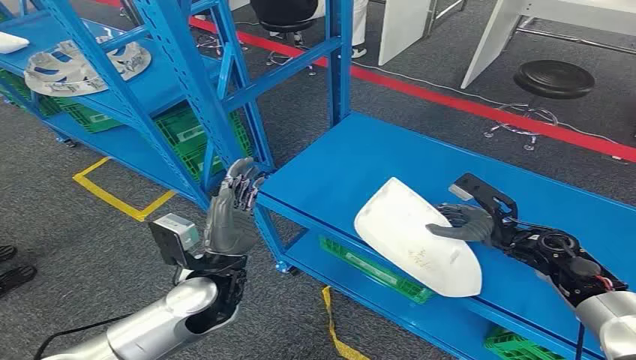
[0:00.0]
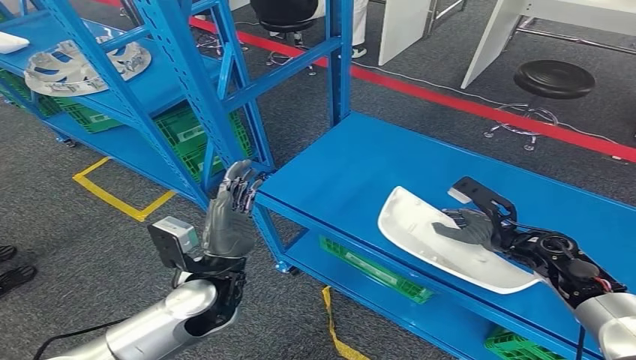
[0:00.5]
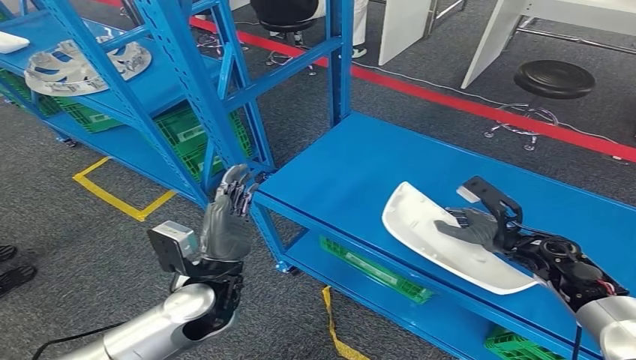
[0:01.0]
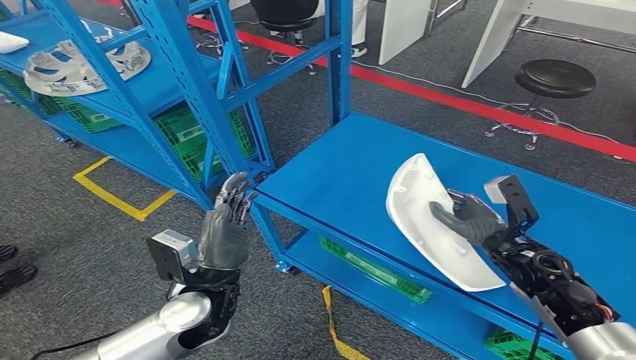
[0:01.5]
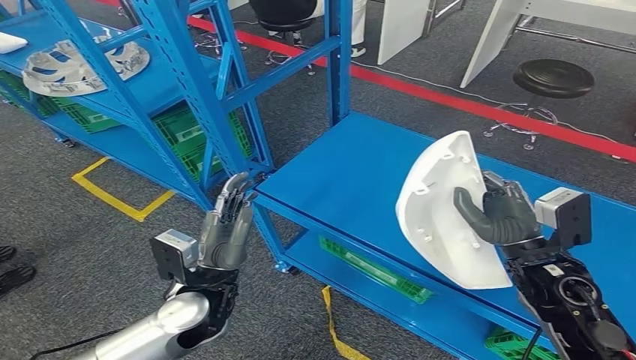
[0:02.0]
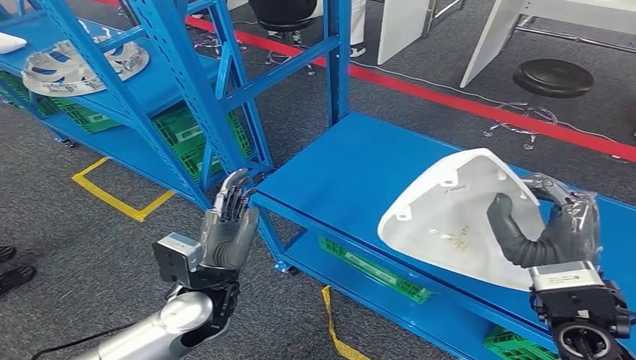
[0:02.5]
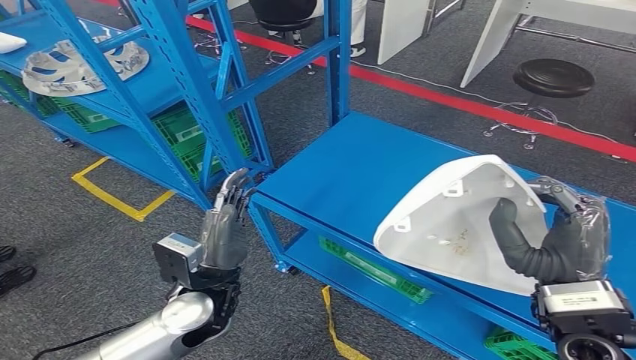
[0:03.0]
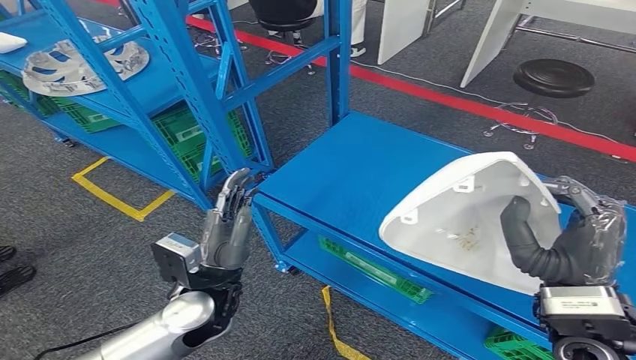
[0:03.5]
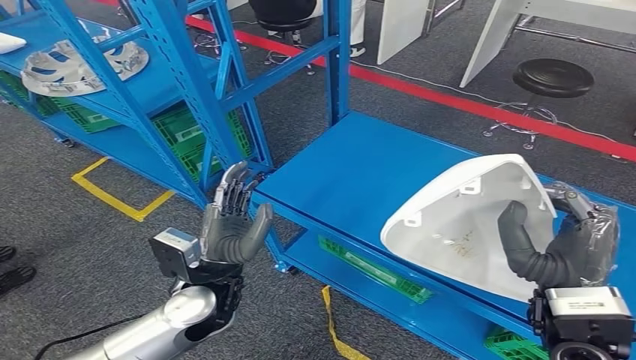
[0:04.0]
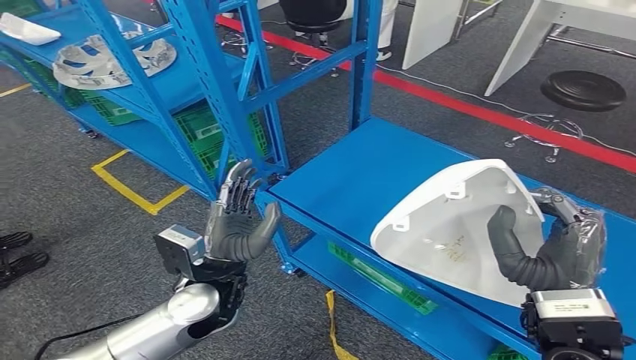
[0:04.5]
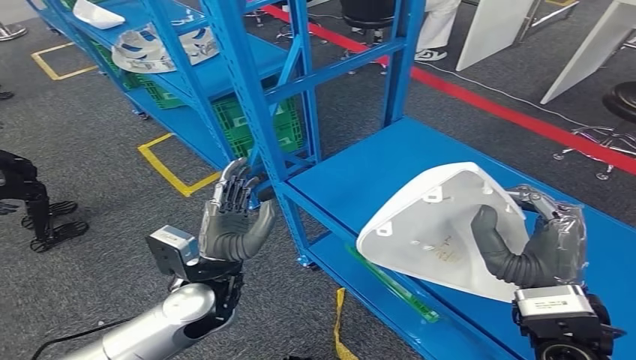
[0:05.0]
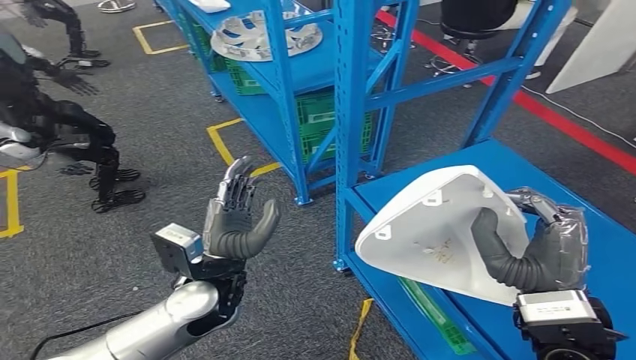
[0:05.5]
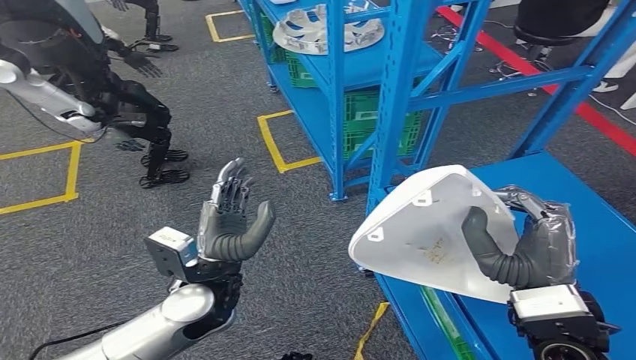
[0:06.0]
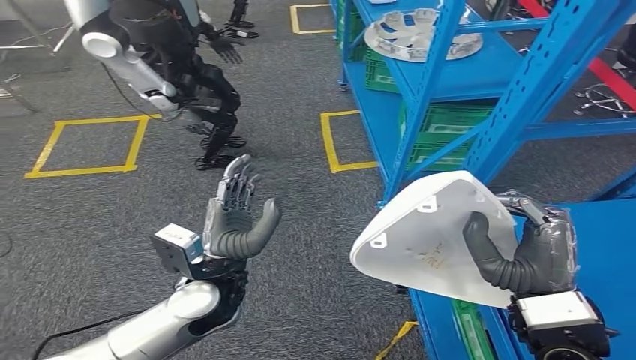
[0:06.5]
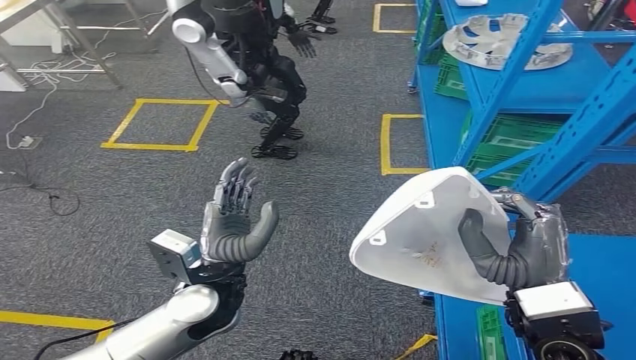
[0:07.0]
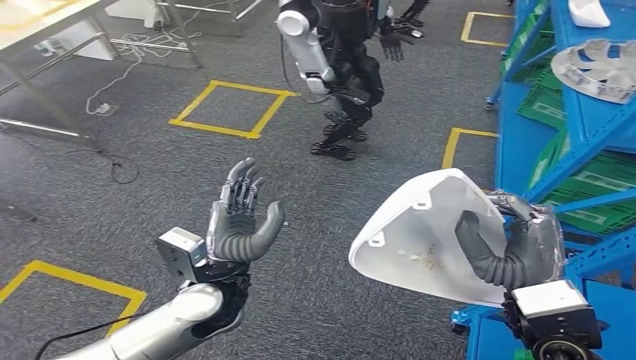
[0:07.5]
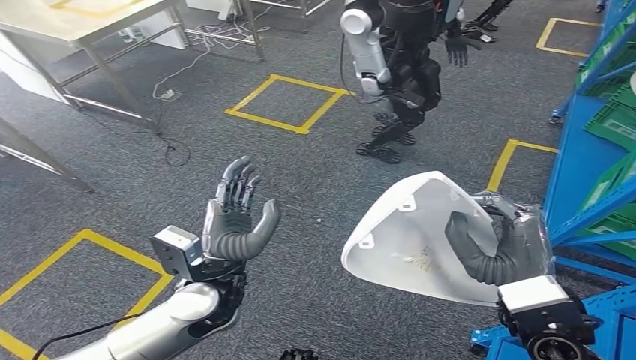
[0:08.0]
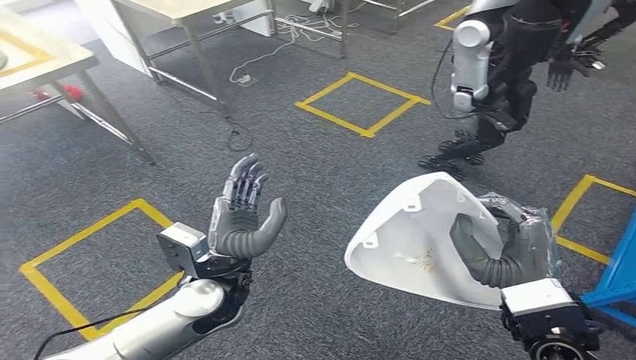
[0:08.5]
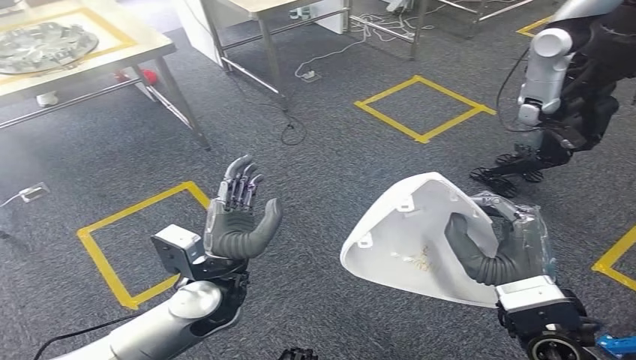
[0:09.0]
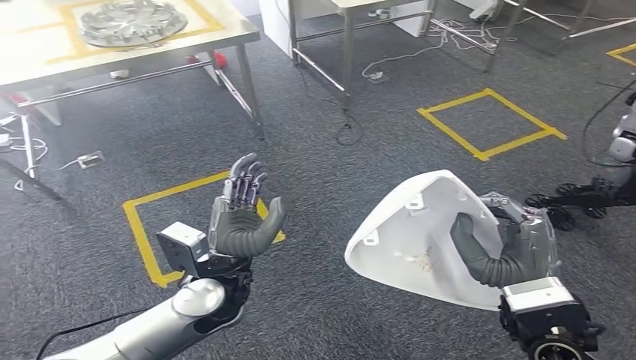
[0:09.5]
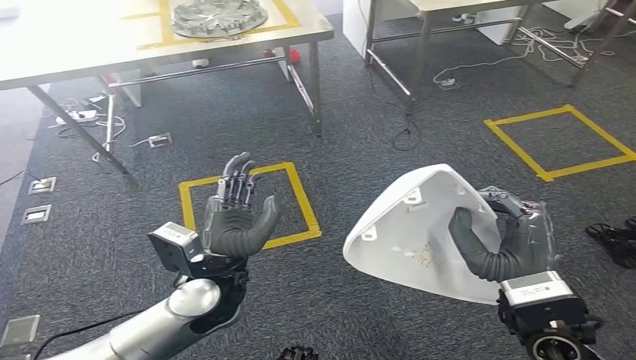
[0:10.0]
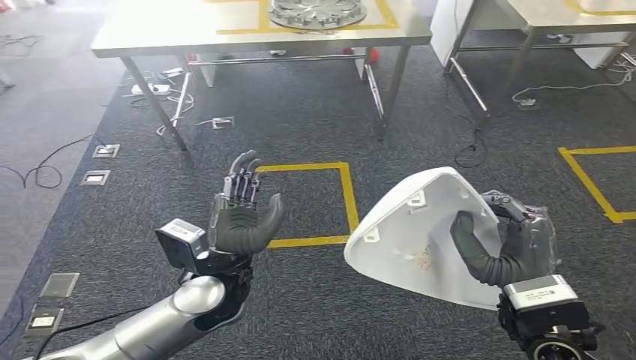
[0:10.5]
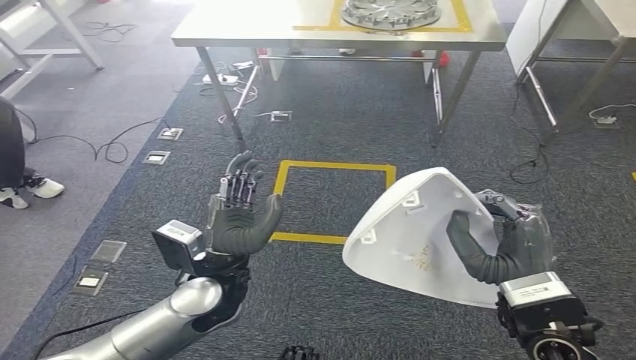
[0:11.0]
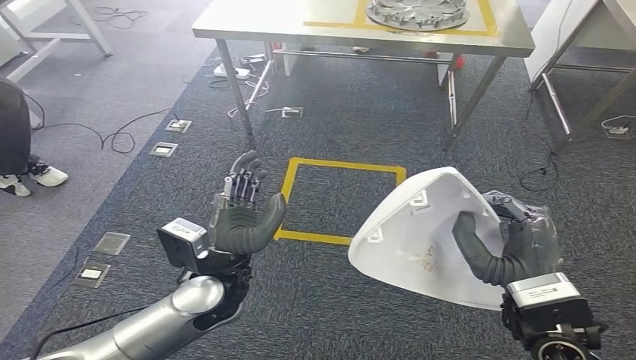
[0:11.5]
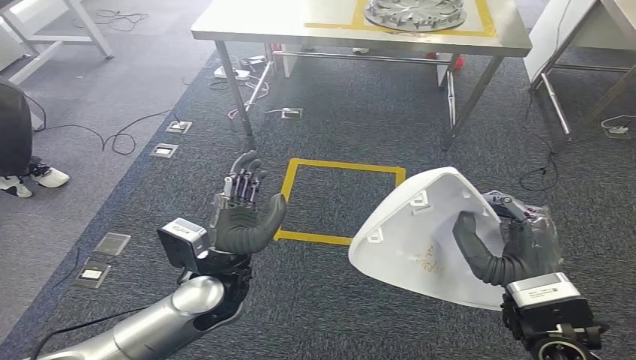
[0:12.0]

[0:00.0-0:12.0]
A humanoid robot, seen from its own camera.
Step, 0:00.0 to 0:04.5: Pick up the small component from the shelf.
0:02.0 to 0:04.0: The right hand travels backward and upward by approximately 10 cm.

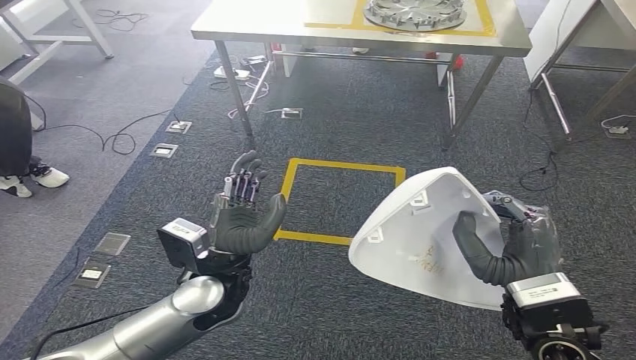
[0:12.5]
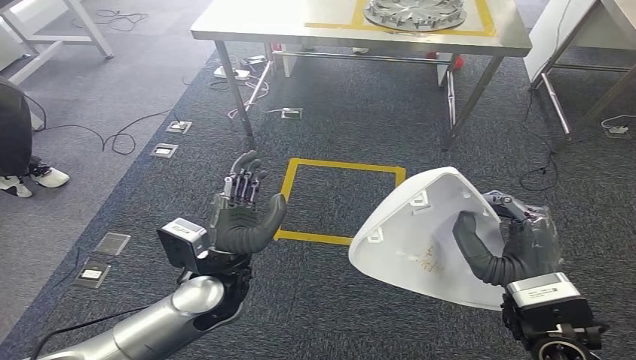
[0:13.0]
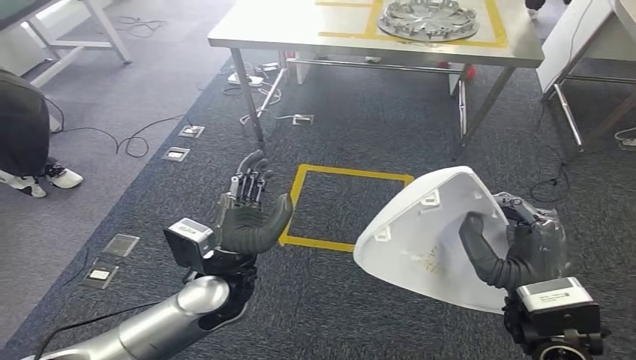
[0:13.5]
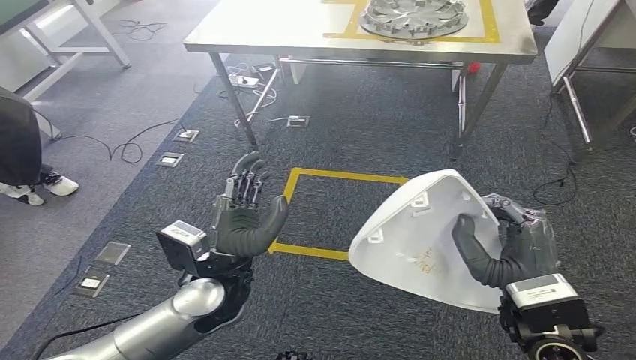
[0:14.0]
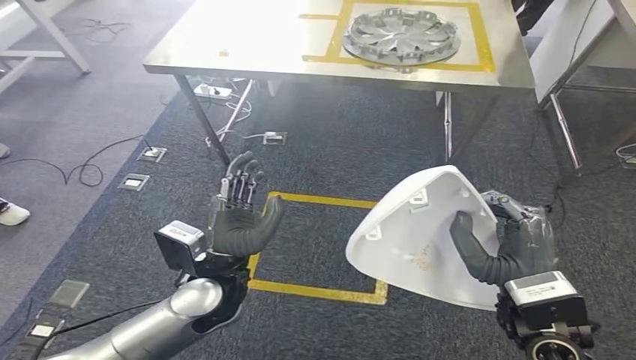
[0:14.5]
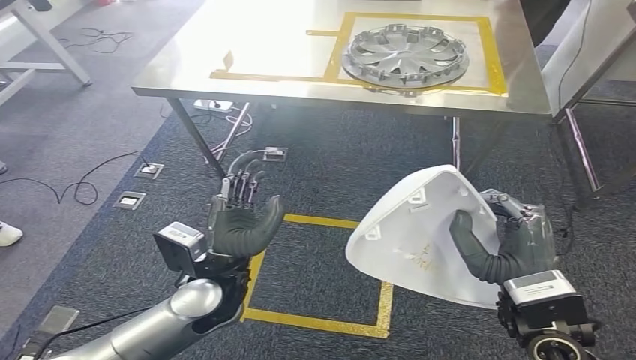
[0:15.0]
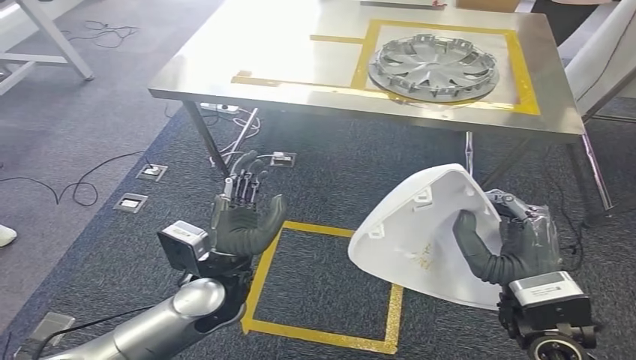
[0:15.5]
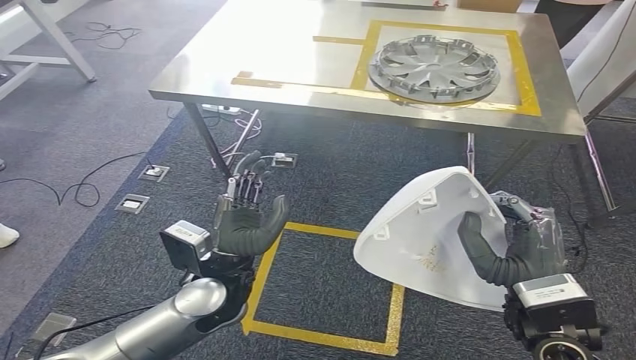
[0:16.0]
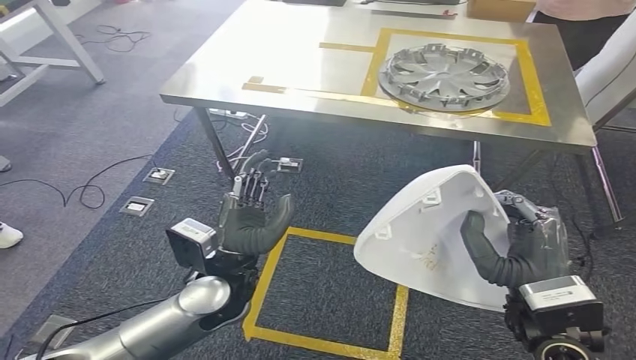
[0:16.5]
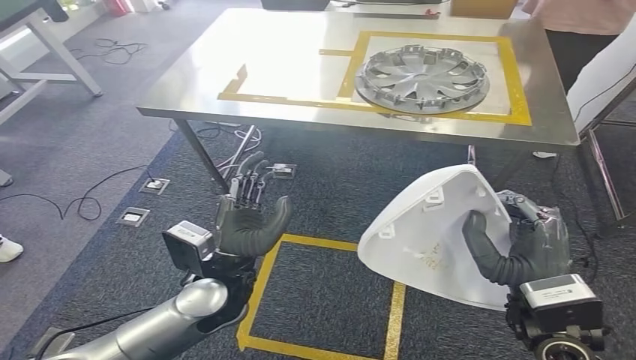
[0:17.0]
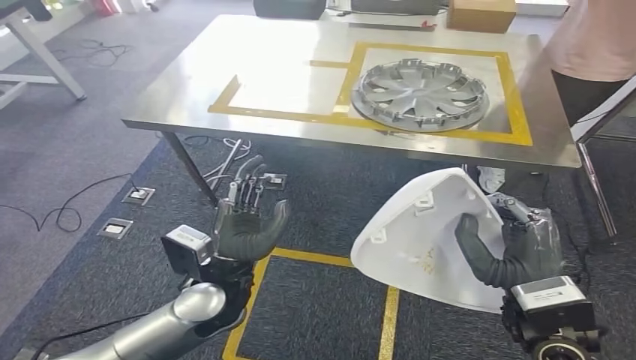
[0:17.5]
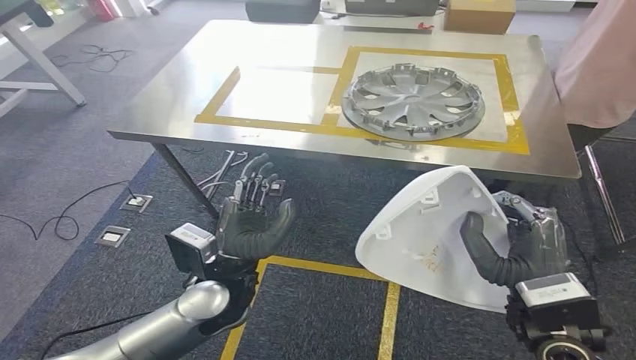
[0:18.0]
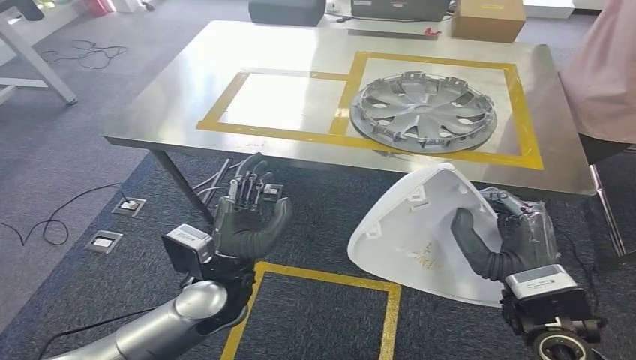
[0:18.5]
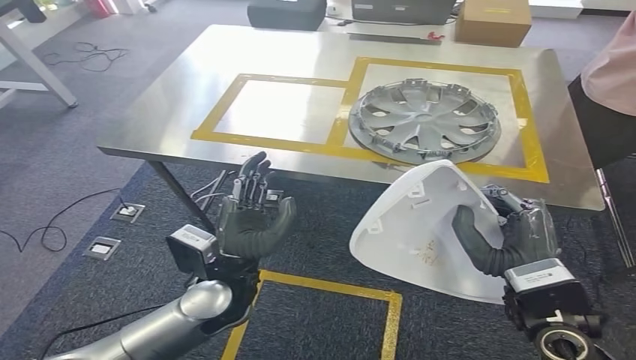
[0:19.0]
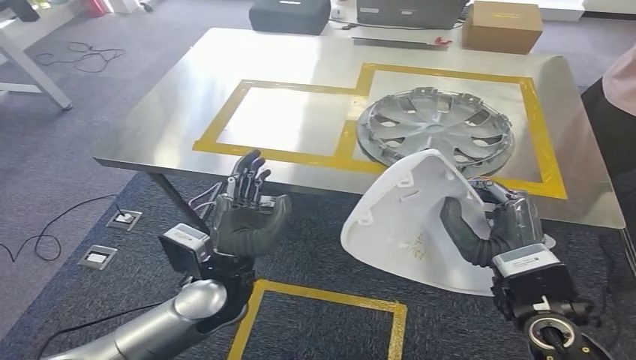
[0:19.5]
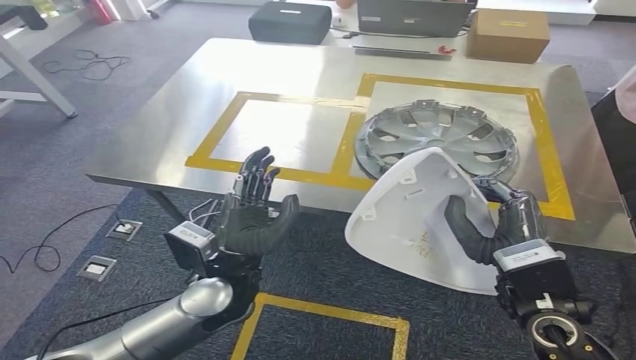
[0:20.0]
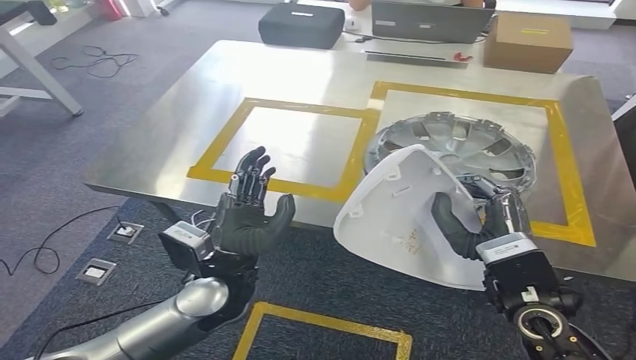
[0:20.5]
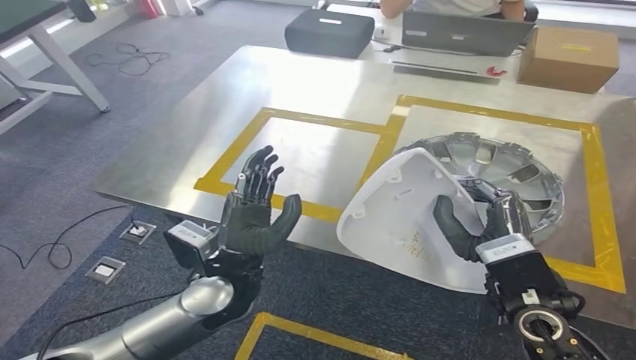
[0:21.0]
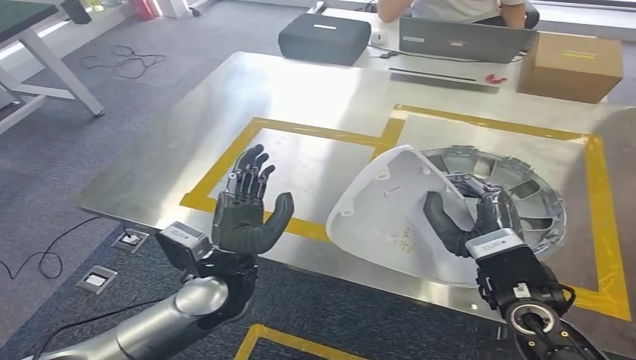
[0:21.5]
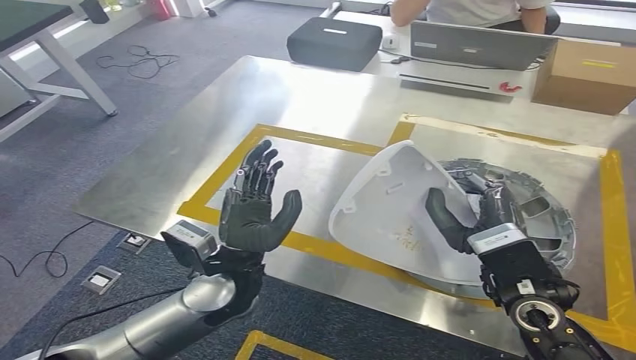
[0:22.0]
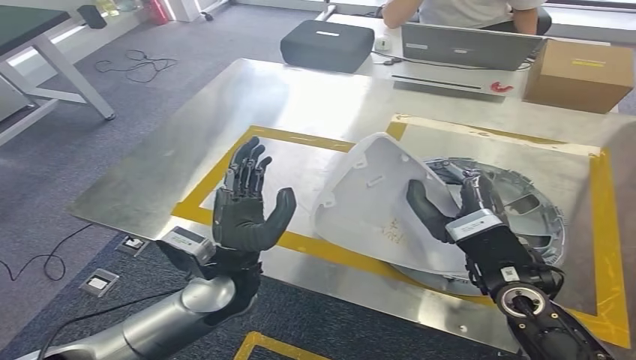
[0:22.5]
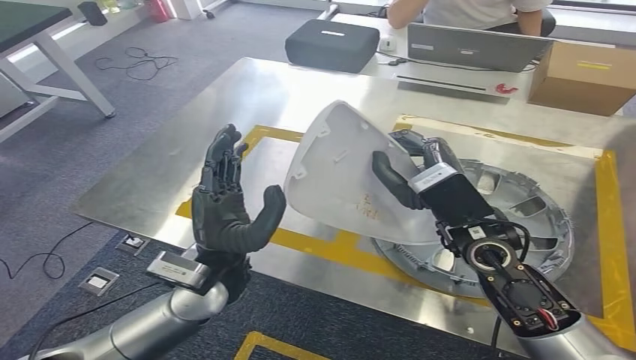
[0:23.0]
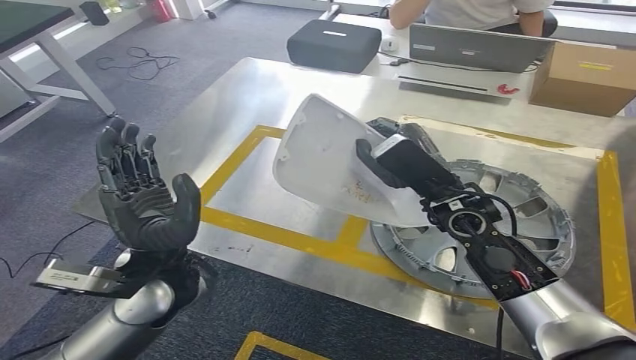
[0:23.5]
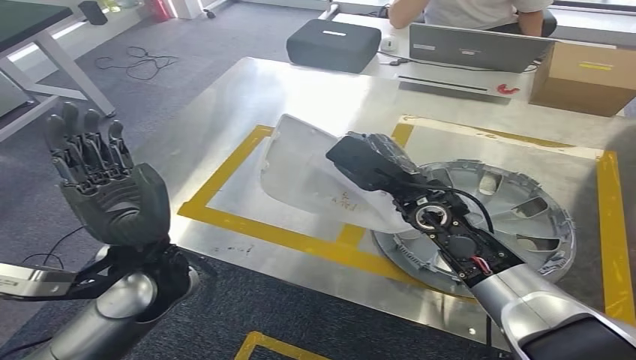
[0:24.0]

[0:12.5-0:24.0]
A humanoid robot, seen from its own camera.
Step, 0:12.5 to 0:19.5: Move the small component to the workbench.
